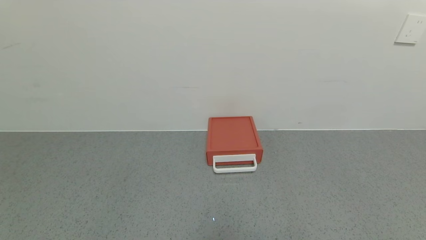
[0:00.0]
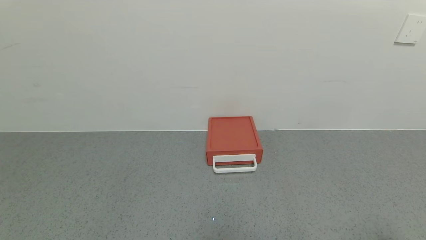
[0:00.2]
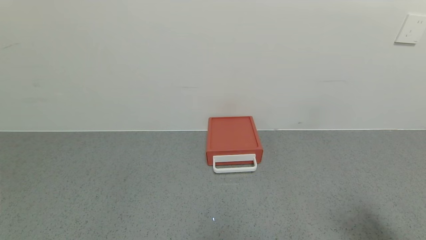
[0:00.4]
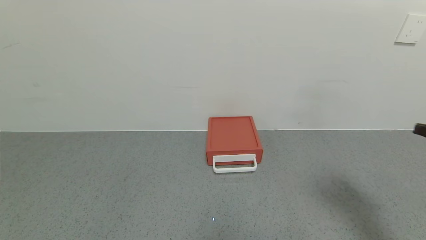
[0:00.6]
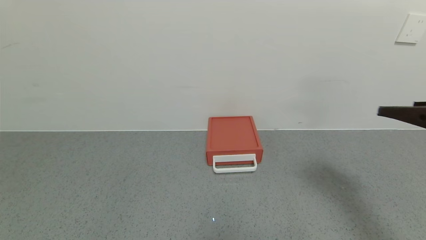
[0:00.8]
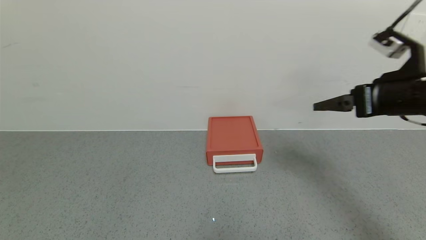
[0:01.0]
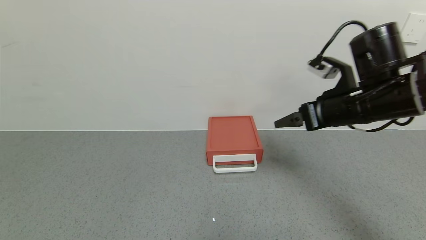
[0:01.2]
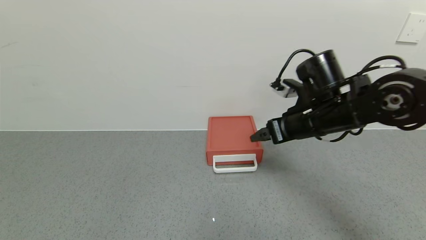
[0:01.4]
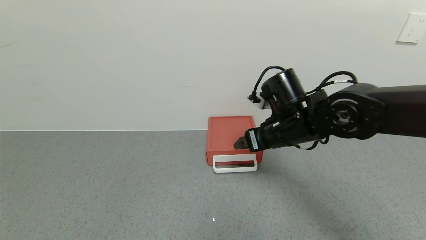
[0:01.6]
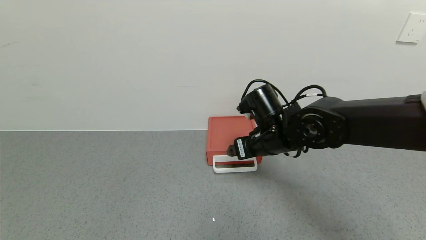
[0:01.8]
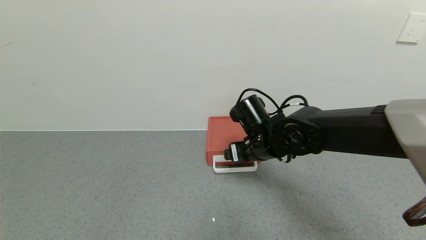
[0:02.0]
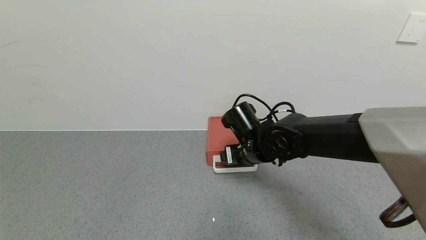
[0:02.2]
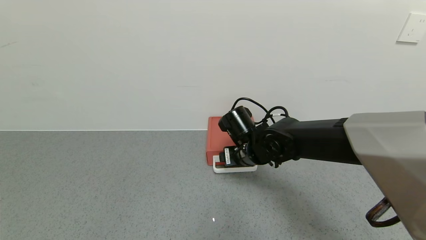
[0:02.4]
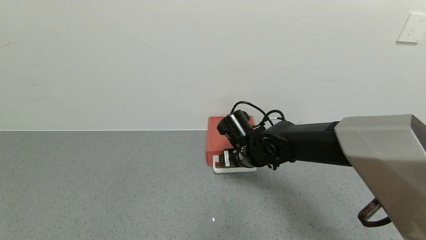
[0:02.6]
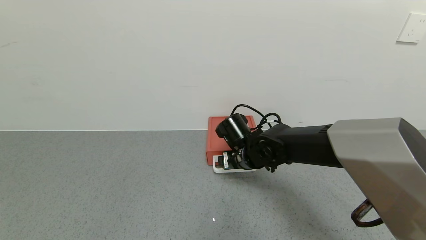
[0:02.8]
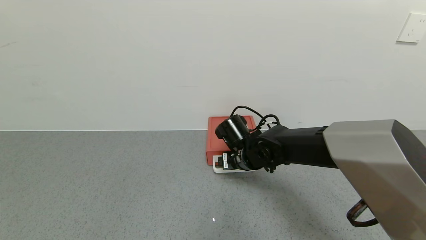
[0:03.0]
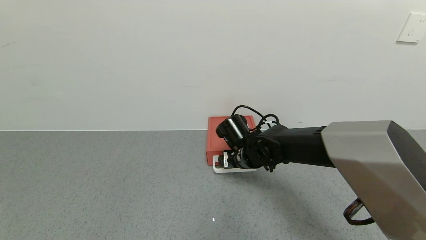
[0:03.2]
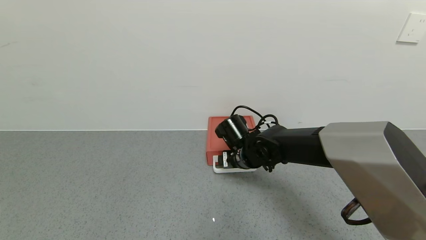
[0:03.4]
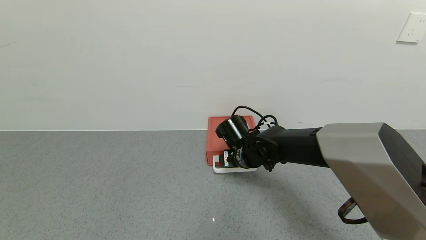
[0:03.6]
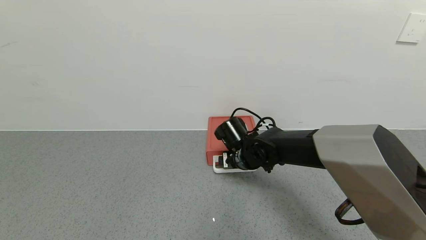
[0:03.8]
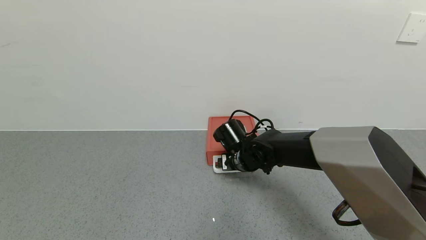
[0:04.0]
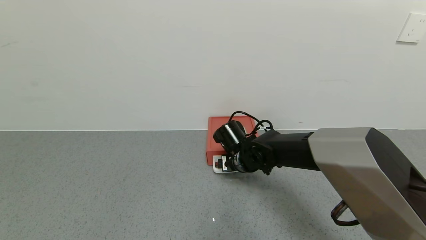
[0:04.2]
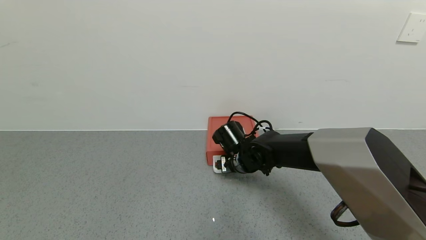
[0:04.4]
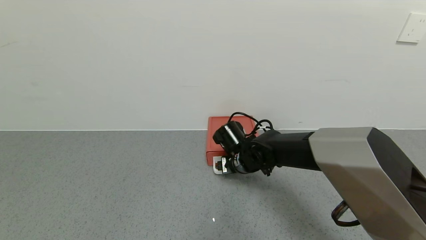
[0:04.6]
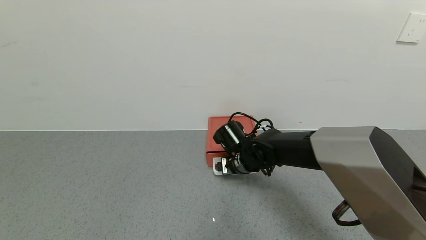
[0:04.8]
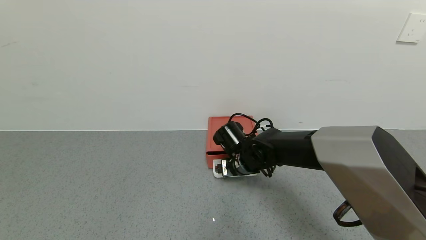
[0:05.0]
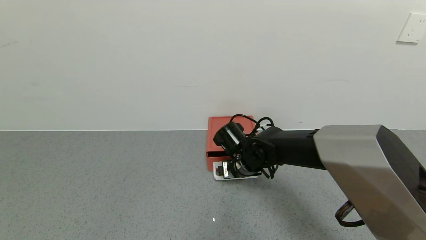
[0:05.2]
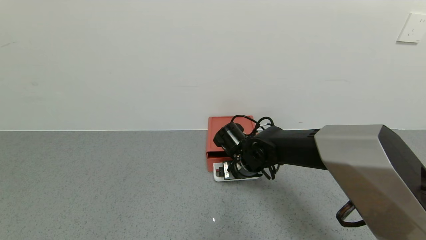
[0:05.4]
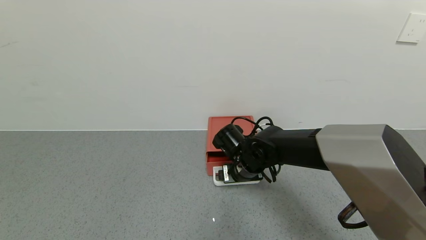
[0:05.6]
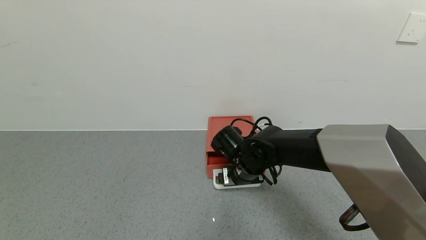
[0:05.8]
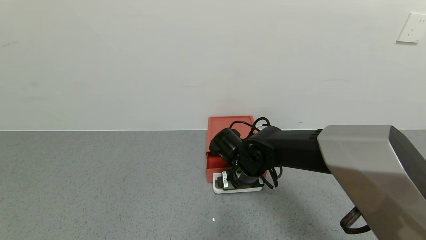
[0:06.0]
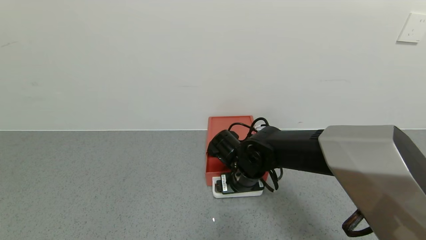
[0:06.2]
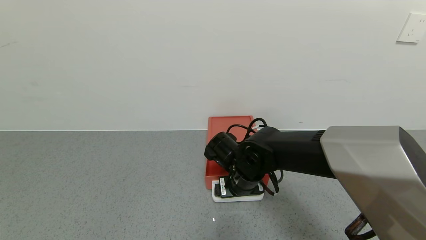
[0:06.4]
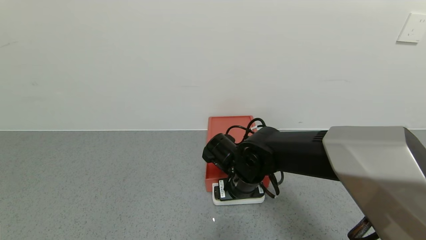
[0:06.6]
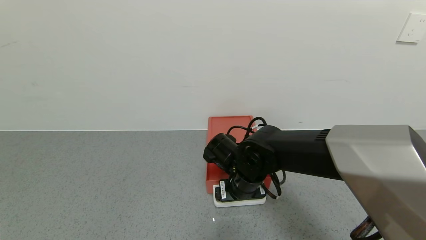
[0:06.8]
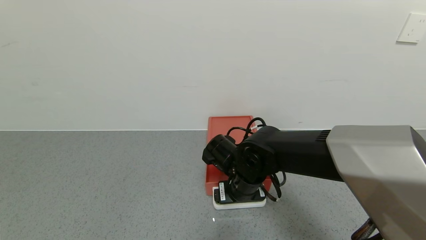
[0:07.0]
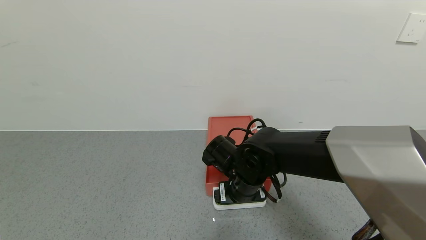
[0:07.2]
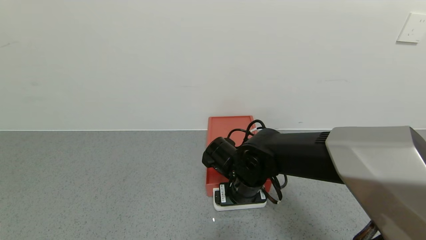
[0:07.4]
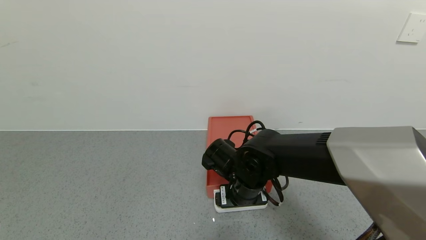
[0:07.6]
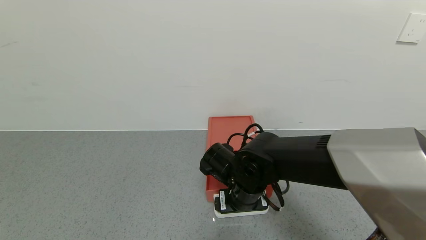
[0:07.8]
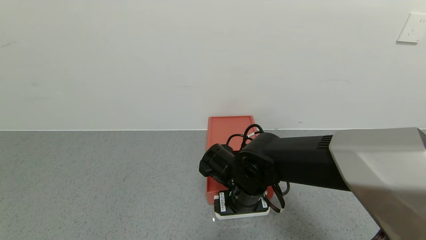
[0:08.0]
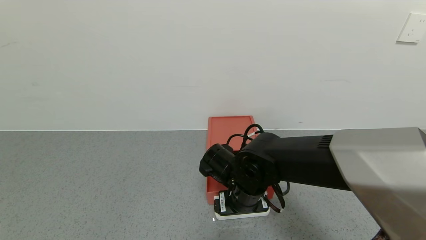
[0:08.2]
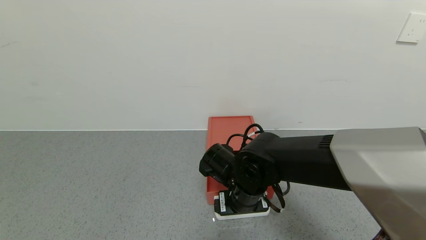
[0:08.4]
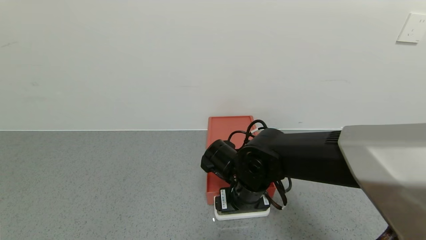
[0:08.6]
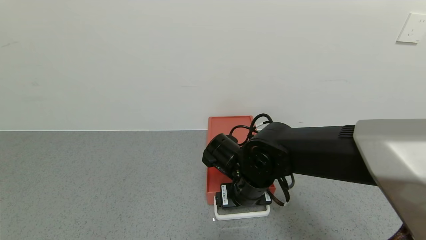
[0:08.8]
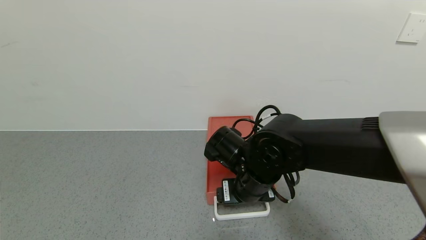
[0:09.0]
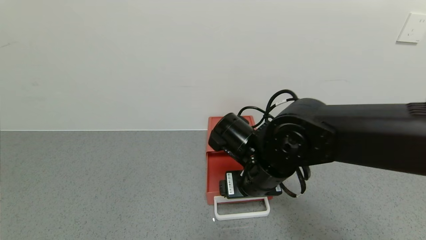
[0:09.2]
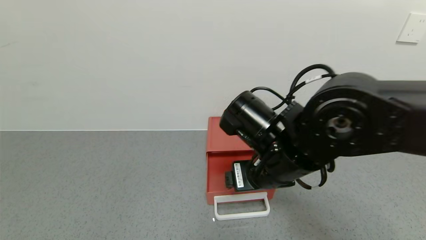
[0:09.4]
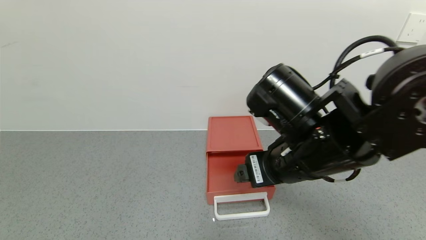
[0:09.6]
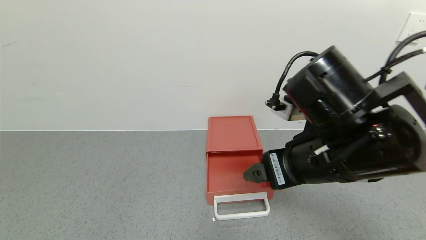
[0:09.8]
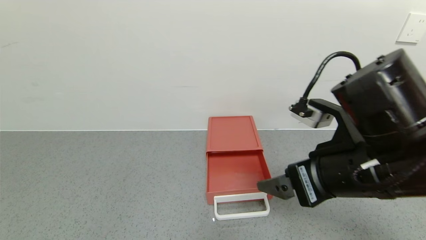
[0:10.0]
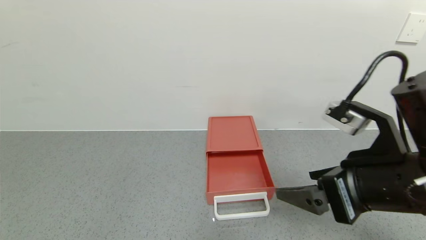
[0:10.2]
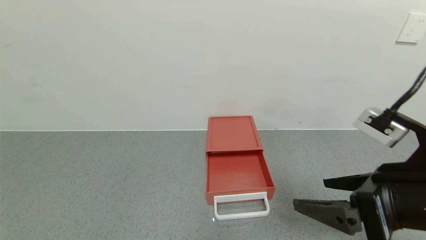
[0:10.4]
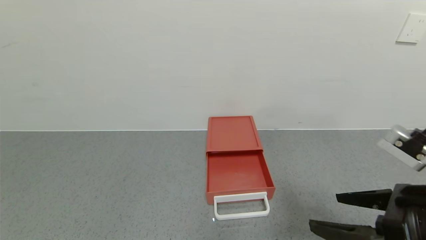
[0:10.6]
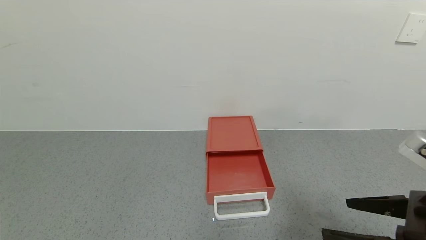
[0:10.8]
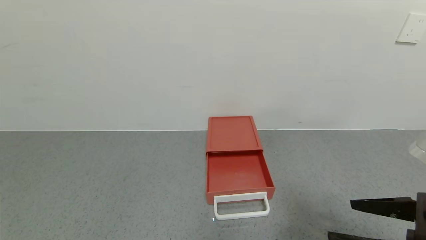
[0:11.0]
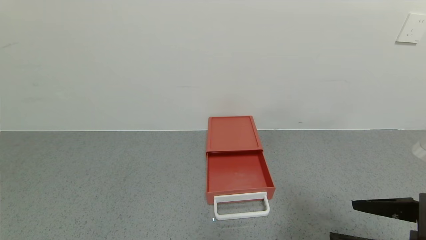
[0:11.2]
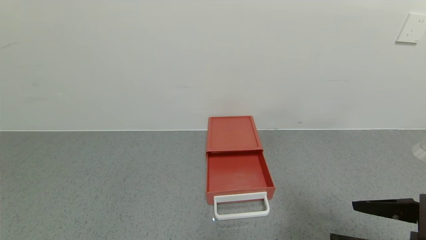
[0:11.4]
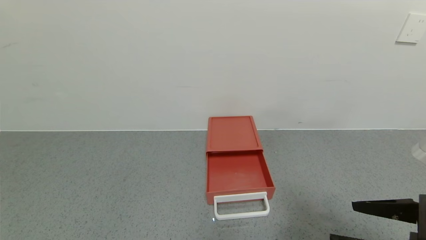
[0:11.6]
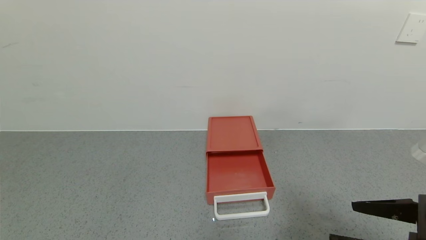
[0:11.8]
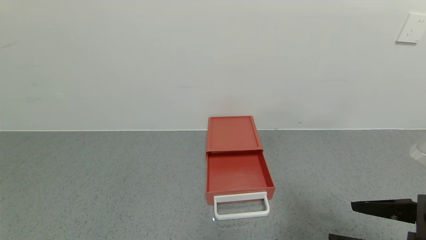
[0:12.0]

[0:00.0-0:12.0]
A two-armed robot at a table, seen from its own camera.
Task of the whole recording: use the gripper to open the drawer and close the red drawer.
Step, 0:00.0 to 0:09.0: Open the red drawer with the right gripper.
0:00.0 to 0:01.6: The right gripper heads forward and to the left, covering some 40 cm.
0:01.6 to 0:03.0: The right gripper travels downward and to the left by approximately 15 cm.
0:03.0 to 0:06.0: The grippers stay close to where they were, moving slightly.
0:06.0 to 0:07.6: The grippers make only small movements.
0:07.6 to 0:09.0: The right gripper moves approximately 5 cm.
0:09.0 to 0:10.4: The right gripper travels to the right, backward and upward by approximately 25 cm.
0:10.4 to 0:12.0: The grippers make only small movements.

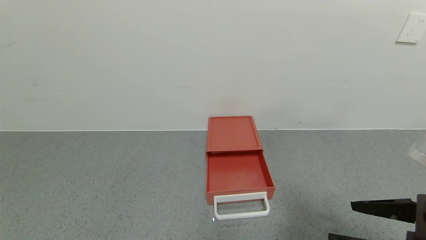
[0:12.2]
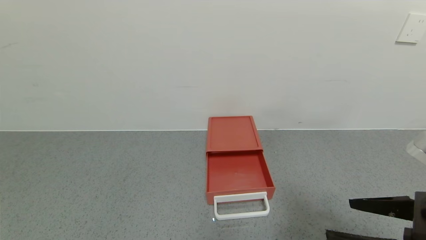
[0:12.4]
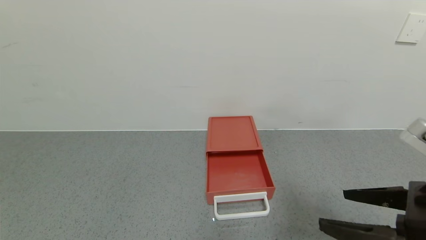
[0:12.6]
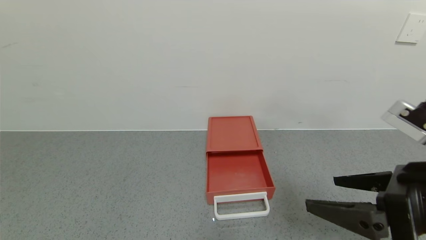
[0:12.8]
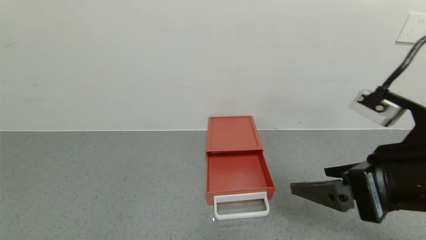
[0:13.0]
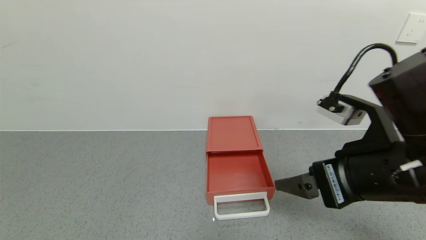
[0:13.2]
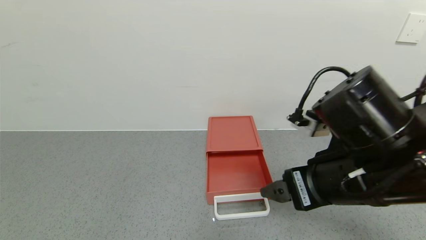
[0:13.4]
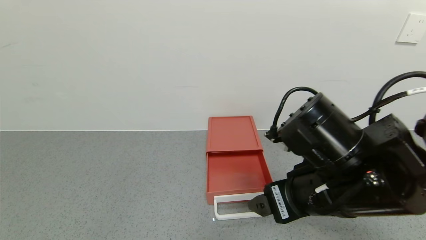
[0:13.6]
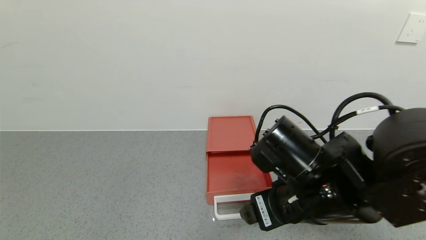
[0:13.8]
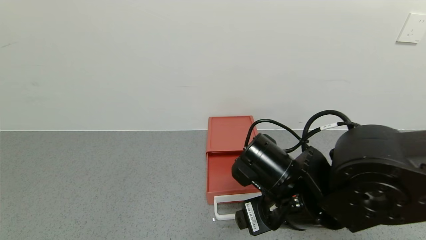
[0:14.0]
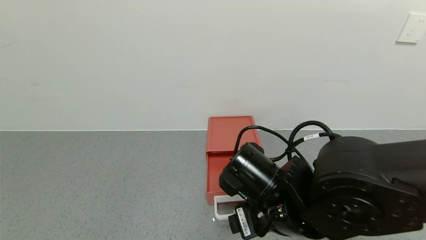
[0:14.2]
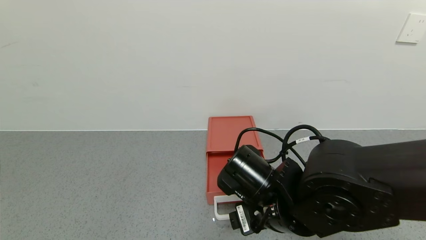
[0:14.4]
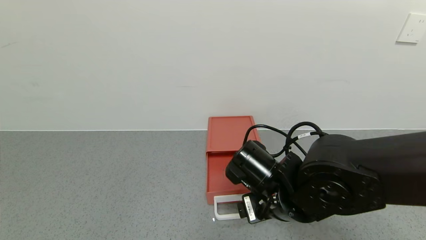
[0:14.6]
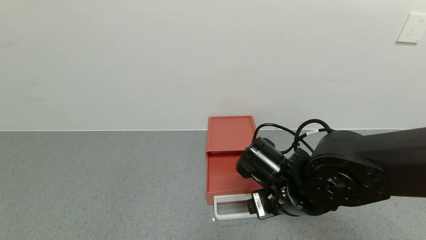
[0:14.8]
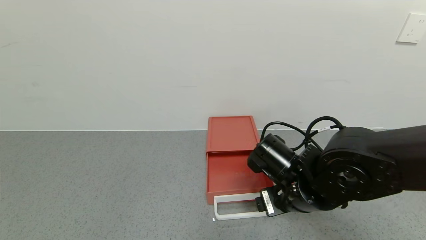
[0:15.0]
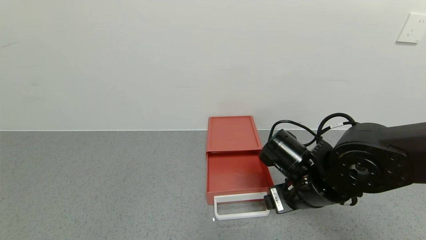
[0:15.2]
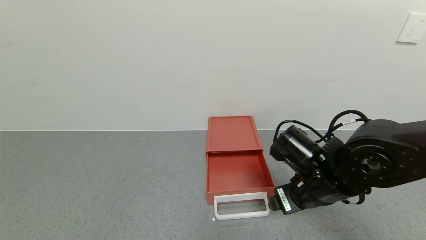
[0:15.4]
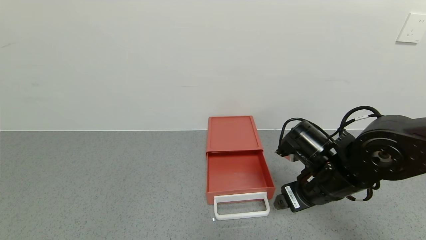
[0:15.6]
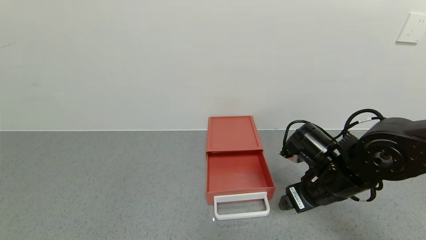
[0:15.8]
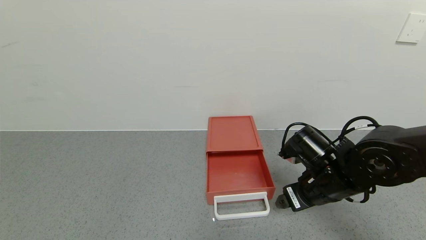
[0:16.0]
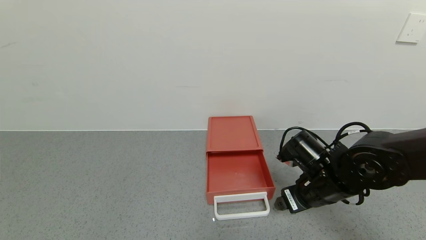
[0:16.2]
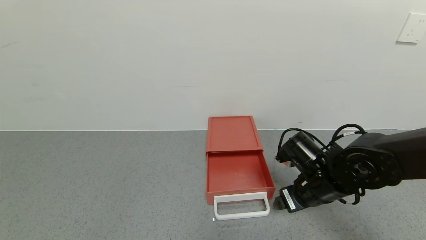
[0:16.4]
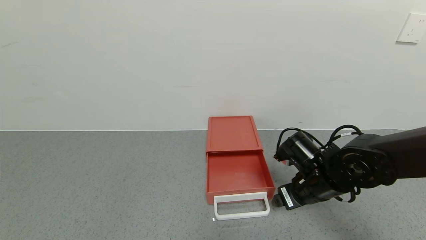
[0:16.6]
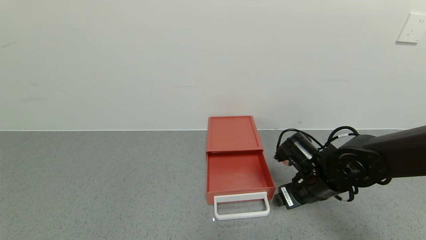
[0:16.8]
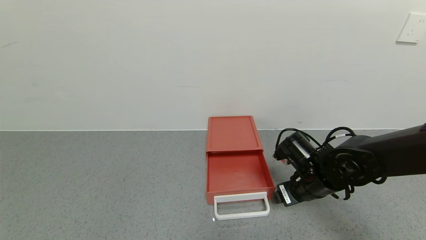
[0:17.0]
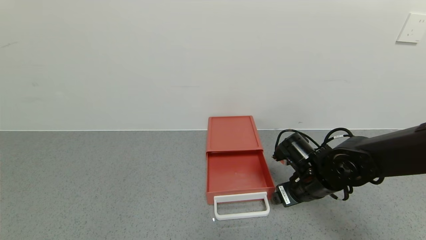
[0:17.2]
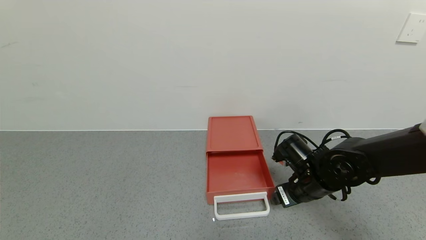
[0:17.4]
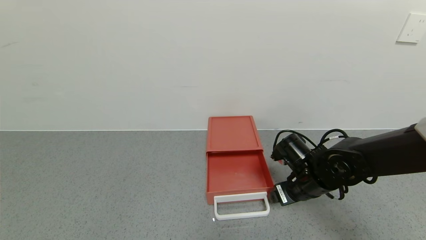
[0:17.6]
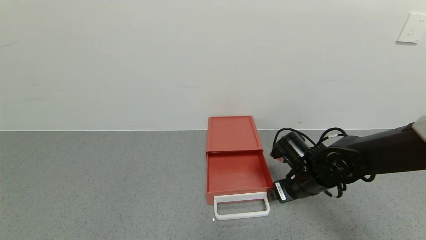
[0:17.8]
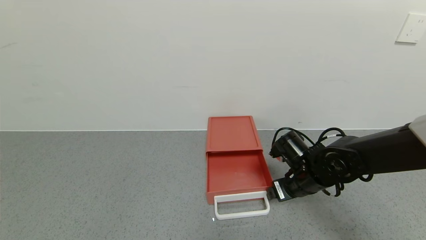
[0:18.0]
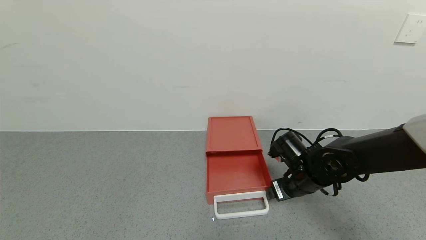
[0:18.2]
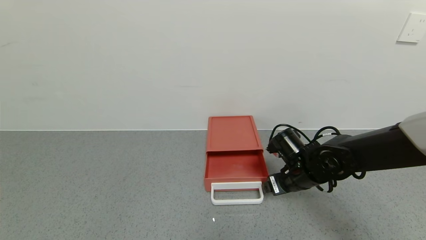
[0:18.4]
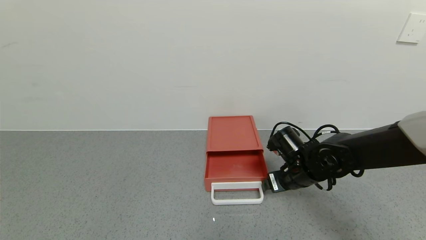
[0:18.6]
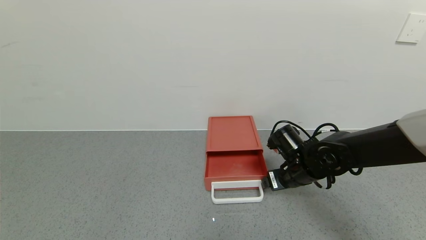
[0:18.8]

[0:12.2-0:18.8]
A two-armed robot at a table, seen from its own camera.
Task of the whole recording: use the gripper to open the drawer and close the red drawer.
0:12.2 to 0:13.8: The right gripper travels to the left and forward by about 15 cm.
0:13.8 to 0:15.4: The right gripper moves to the right and forward, about 10 cm.
0:15.4 to 0:17.2: The right gripper heads downward, covering some 5 cm.
0:17.2 to 0:18.8: The grippers make only small movements.
